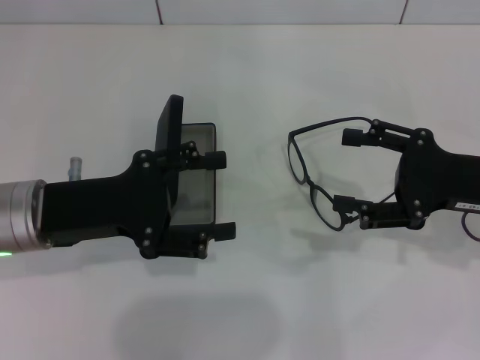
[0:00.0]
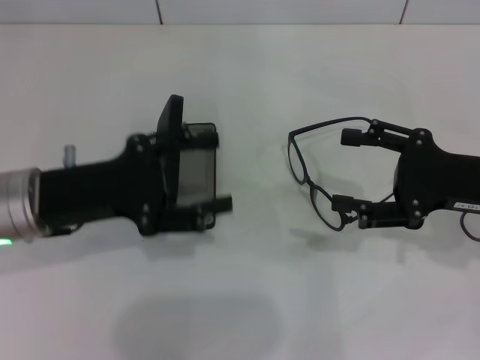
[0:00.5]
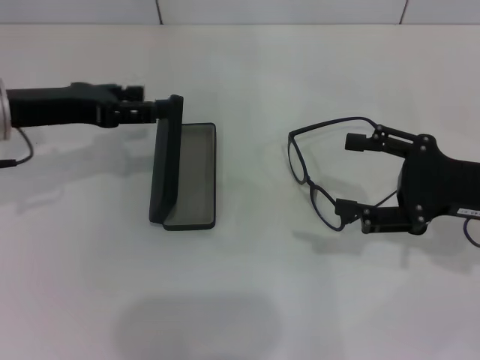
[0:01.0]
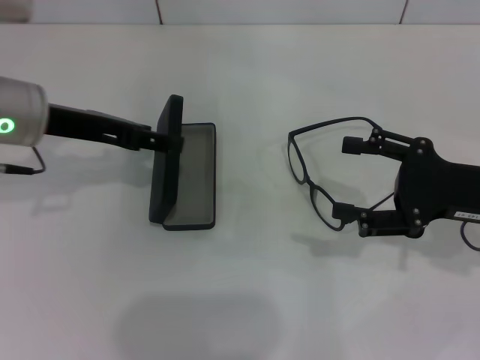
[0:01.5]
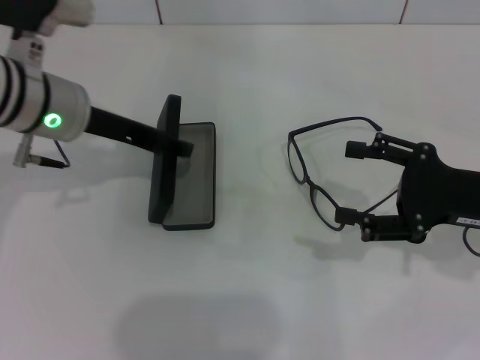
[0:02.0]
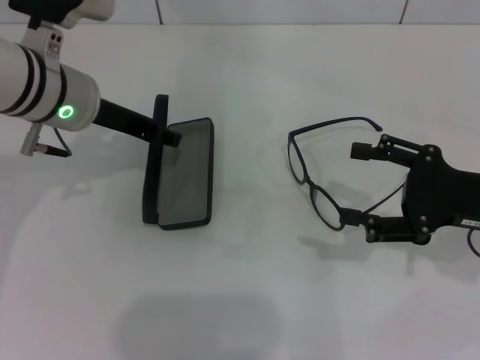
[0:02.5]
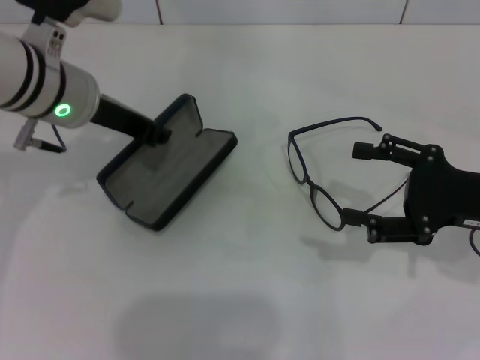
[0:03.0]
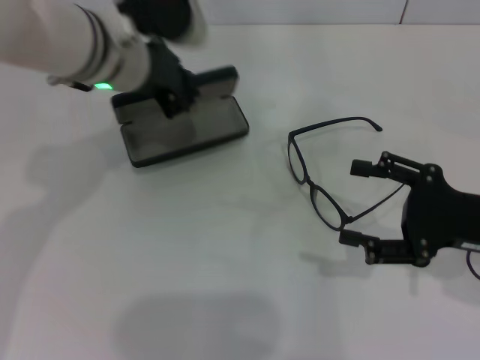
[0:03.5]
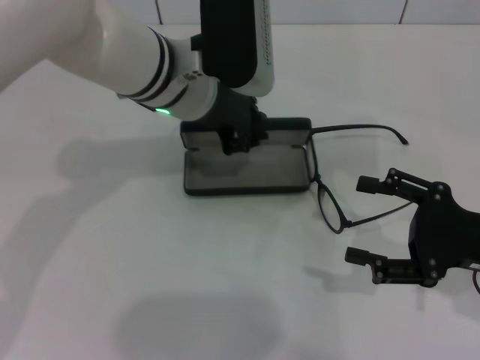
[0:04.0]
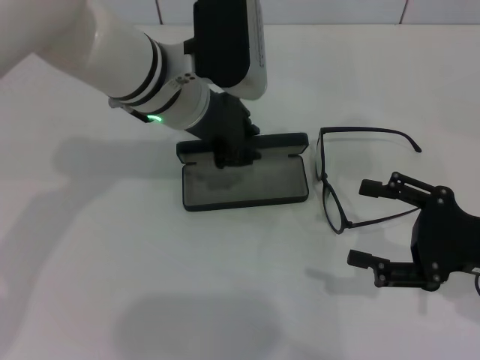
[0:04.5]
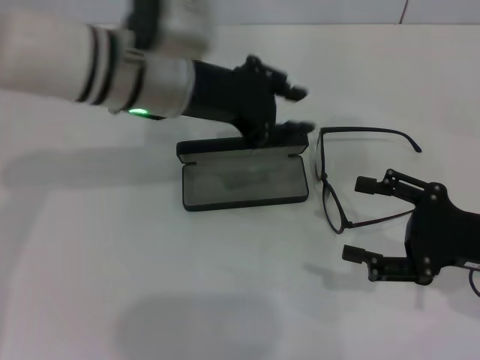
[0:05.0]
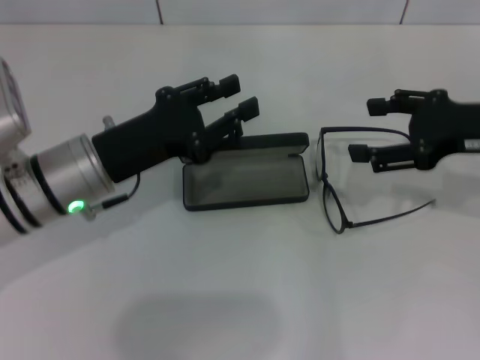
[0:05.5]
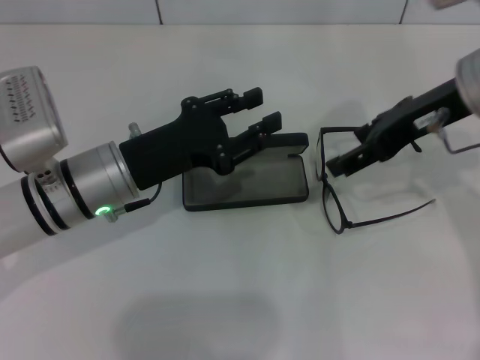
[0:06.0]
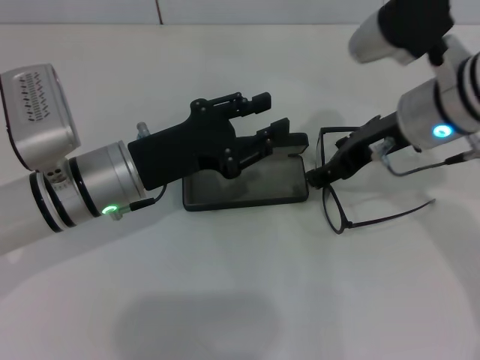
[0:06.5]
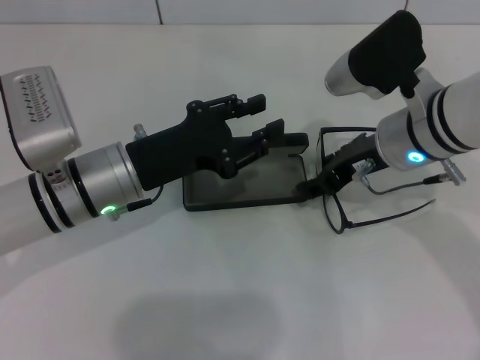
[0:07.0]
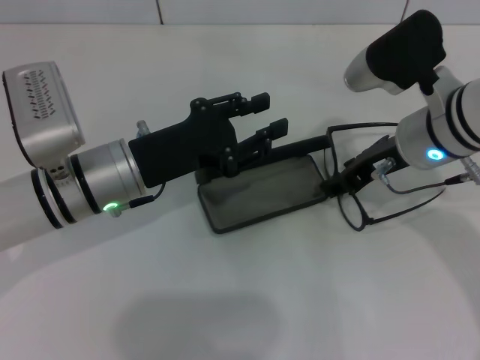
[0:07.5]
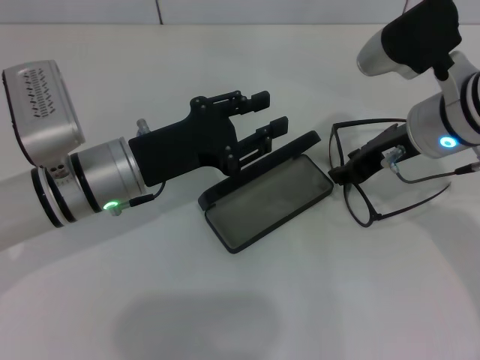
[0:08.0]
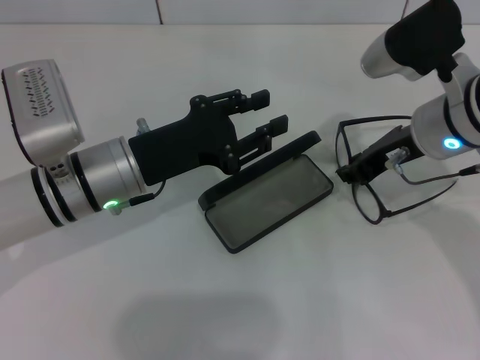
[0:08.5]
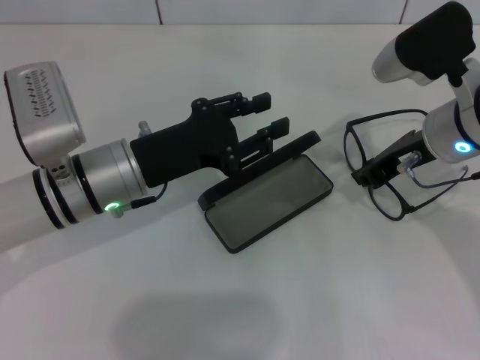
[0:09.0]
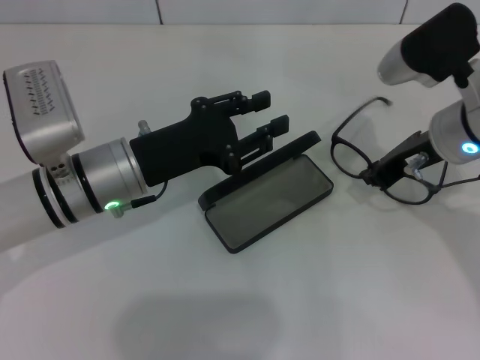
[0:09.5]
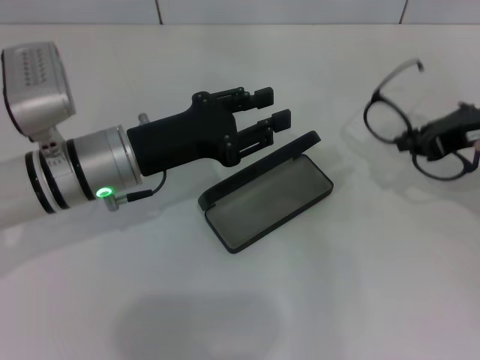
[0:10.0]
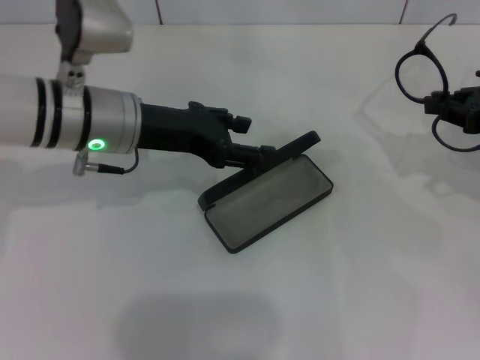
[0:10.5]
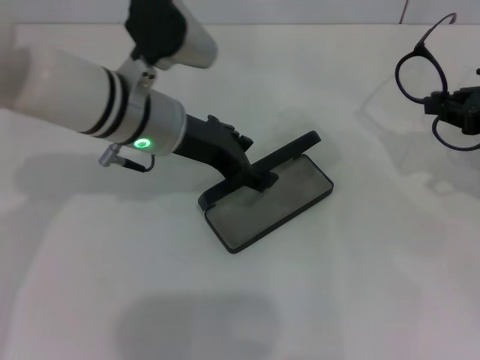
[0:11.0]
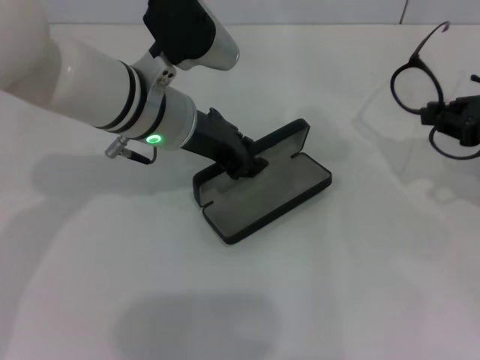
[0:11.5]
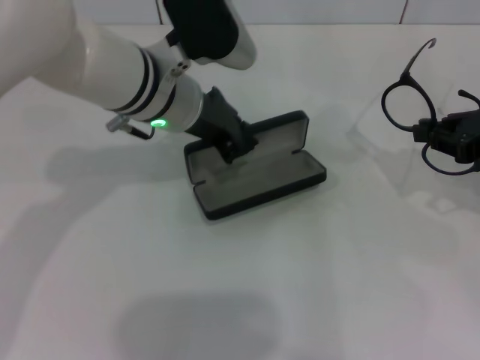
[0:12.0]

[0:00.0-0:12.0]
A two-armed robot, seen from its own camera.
Step, 0:00.0 to 0:02.5: Grab the glasses case with your left hand.
Step, 0:03.0 to 0:07.5: Place the glasses case in the center of the table with your left hand.
Step, 0:08.5 to 0:09.0: Grab the eyeglass frame with your right hand.
Step, 0:09.5 to 0:11.5: Grab the glasses case with your left hand.
0:00.0 to 0:02.0: The left gripper travels forward by about 10 cm.
0:02.0 to 0:04.0: The left gripper travels to the right by approximately 10 cm, and closes up.
0:04.0 to 0:06.0: The left gripper moves to the left, downward and backward, about 15 cm, and opens up, while the right gripper moves upward, forward and to the left, some 20 cm.
0:06.0 to 0:08.0: The right gripper travels downward by about 5 cm, and closes its fingers.
0:08.0 to 0:10.0: The right gripper moves to the right, roughly 10 cm, and closes its fingers.
0:10.0 to 0:12.0: The left gripper heads to the right, upward and forward, covering about 10 cm, and closes its fingers; the right gripper goes roughly 5 cm to the right.

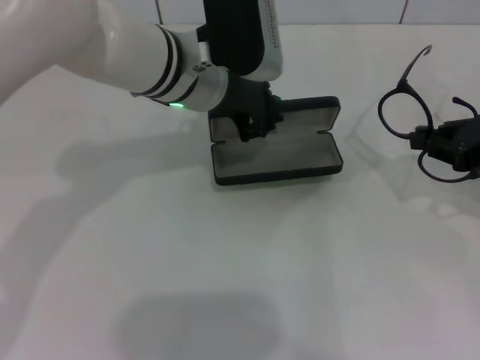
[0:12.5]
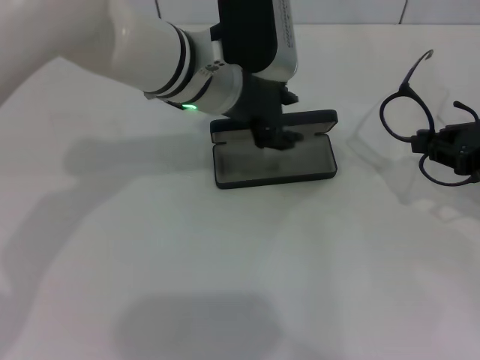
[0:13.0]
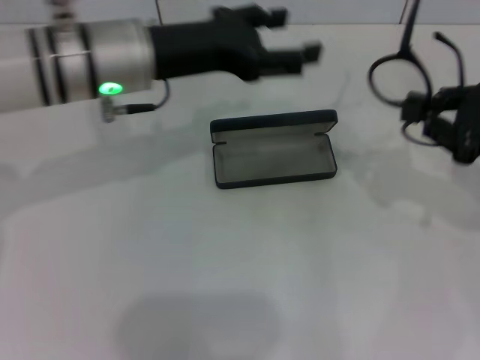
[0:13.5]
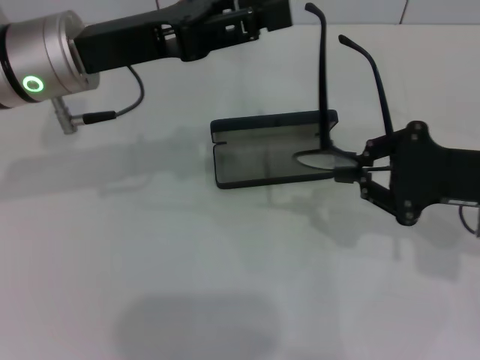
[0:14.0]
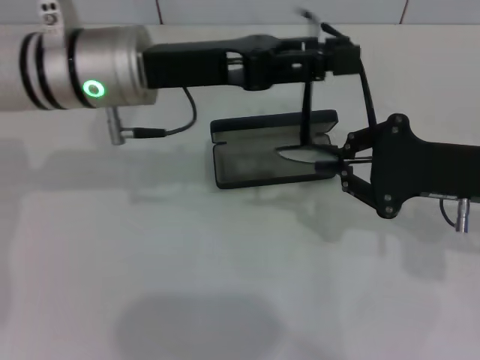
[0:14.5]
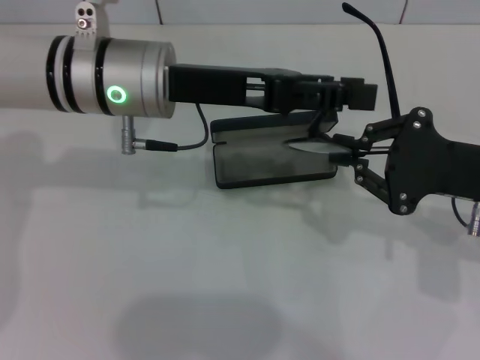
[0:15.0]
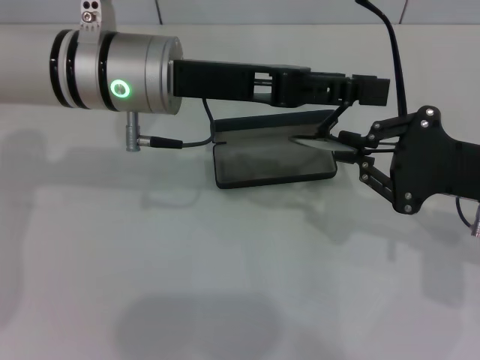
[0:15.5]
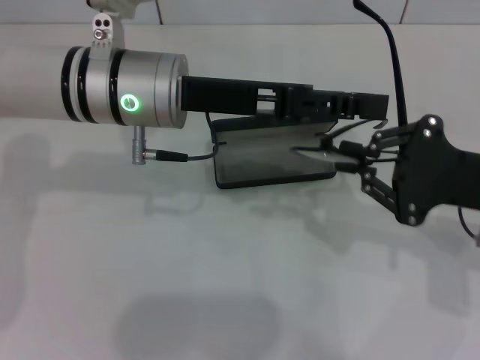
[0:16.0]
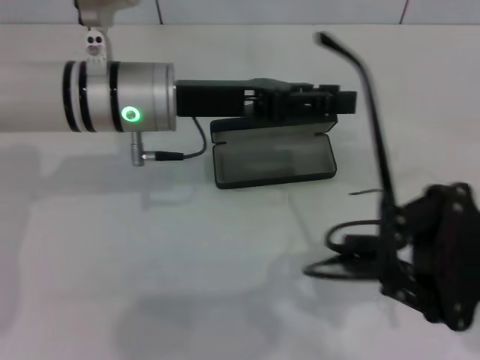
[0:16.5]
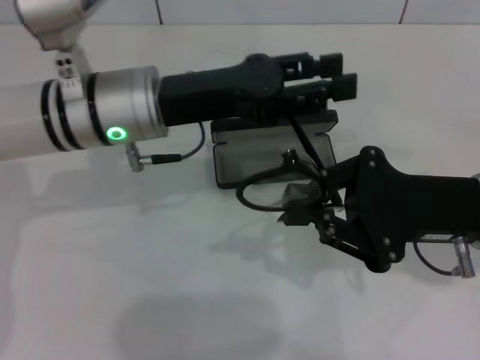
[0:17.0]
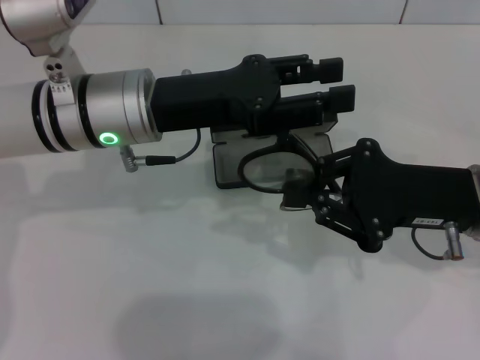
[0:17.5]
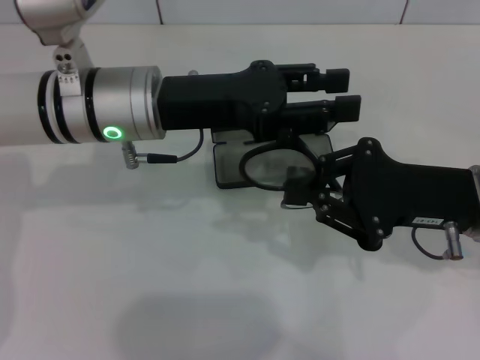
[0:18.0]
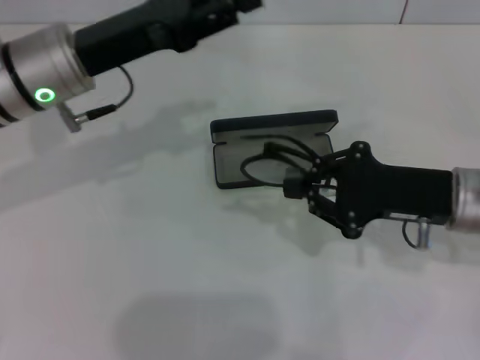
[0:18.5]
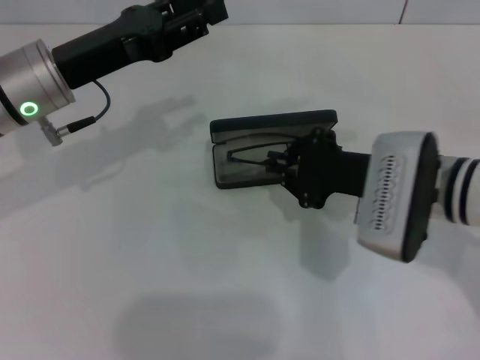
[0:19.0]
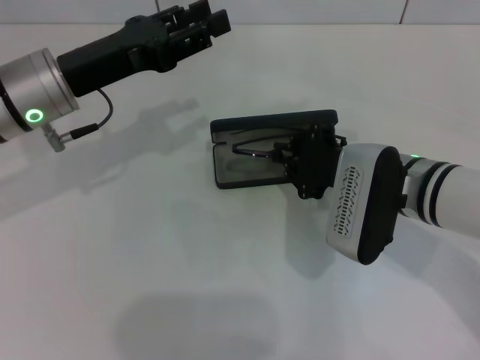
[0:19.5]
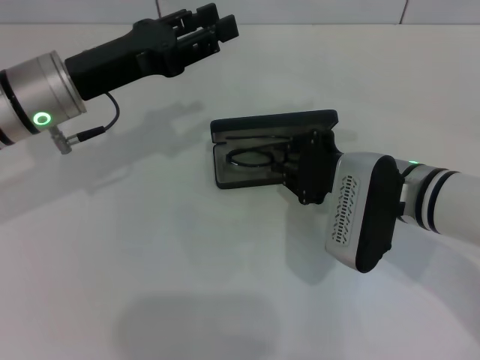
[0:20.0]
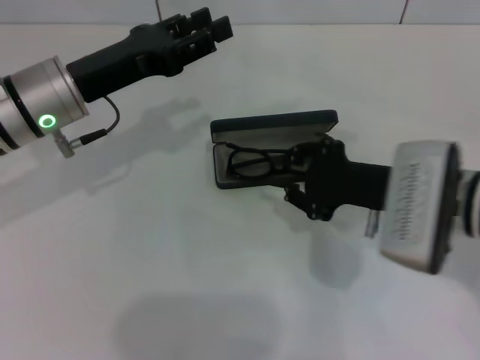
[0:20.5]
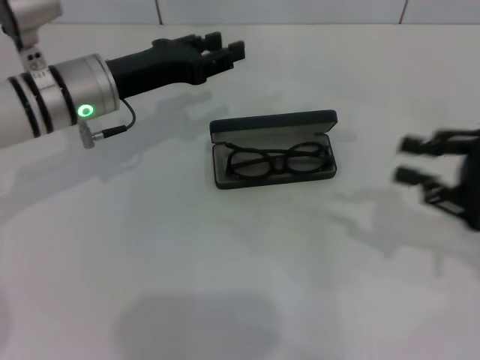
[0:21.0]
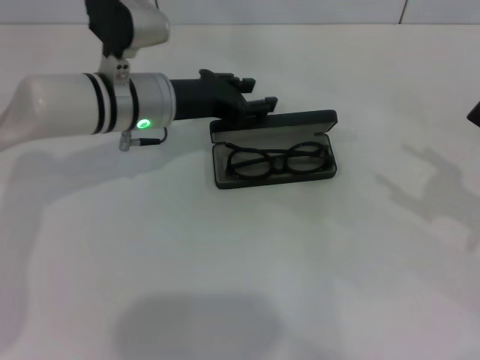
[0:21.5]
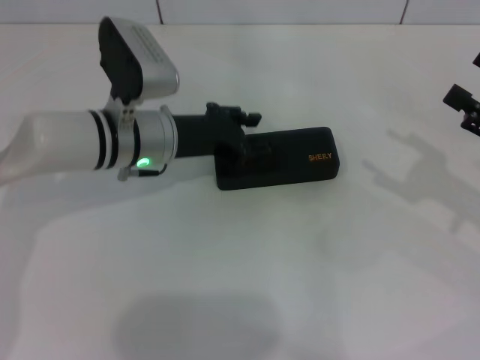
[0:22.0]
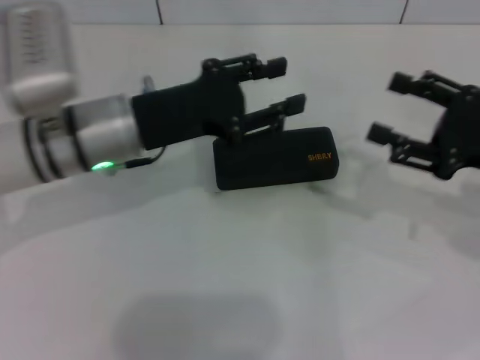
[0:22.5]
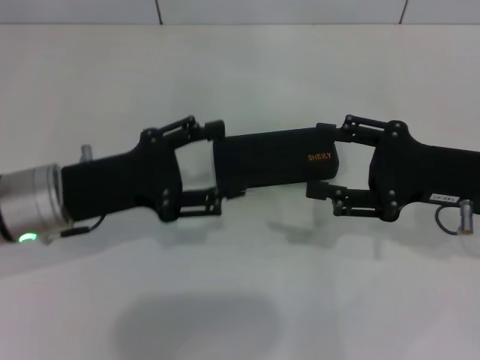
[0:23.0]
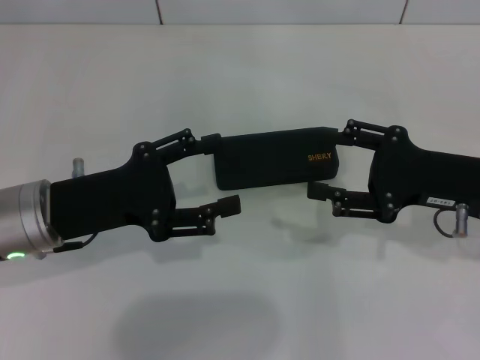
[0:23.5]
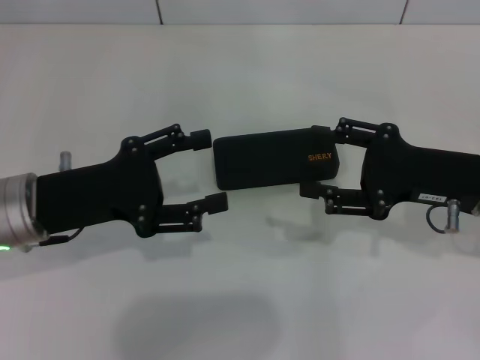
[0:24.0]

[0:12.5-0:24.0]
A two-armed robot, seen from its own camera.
Step, 0:13.0 to 0:17.5: Fold the frame with your left hand.
Step, 0:18.0 to 0:20.0: Put the glasses into the case with your right hand.
Step, 0:20.5 to 0:22.0: Close the glasses case with your left hand.
0:12.5 to 0:14.5: The grippers both shift to the left by approximately 5 cm. The left gripper opens up.
0:14.5 to 0:16.5: The right gripper shifts roughly 5 cm backward.
0:16.5 to 0:18.5: The right gripper is displaced forward by about 5 cm, while the left gripper goes approximately 5 cm to the left.
0:18.5 to 0:20.0: The right gripper travels to the left by approximately 10 cm.
0:20.0 to 0:22.0: The left gripper is displaced to the right and downward by some 10 cm, while the right gripper heads to the right, covering approximately 20 cm, and opens its fingers.
0:22.0 to 0:24.0: The right gripper heads to the left, covering some 10 cm. The left gripper shifts some 15 cm backward and to the left, and opens its fingers.
